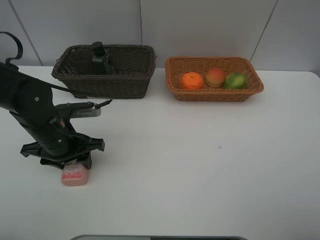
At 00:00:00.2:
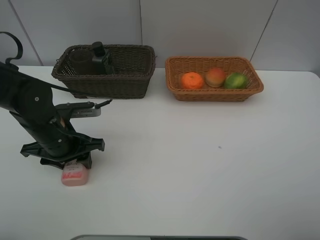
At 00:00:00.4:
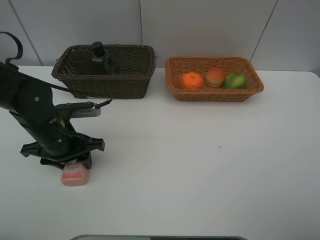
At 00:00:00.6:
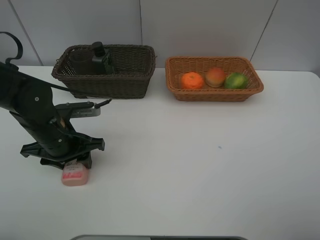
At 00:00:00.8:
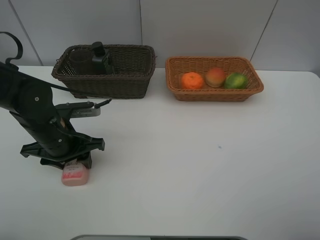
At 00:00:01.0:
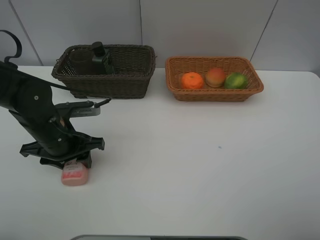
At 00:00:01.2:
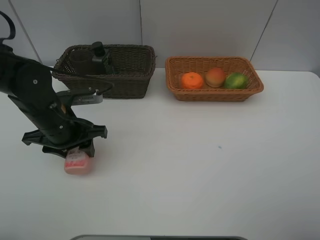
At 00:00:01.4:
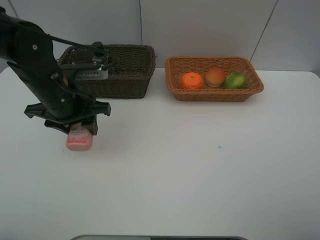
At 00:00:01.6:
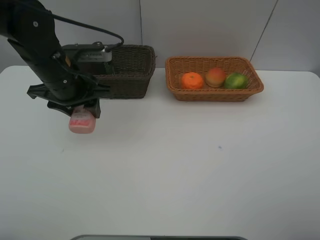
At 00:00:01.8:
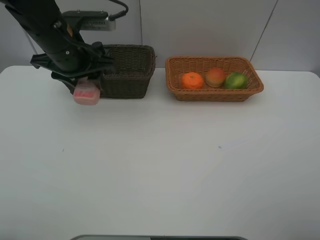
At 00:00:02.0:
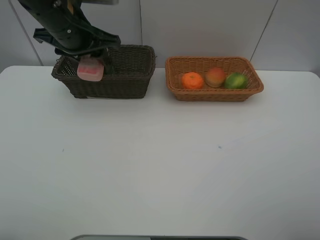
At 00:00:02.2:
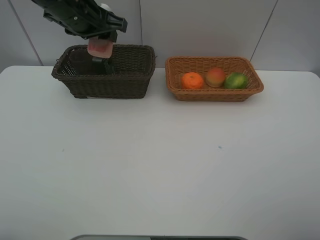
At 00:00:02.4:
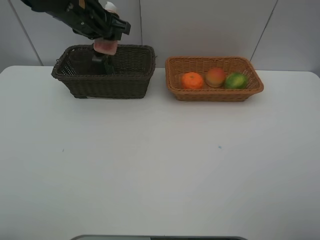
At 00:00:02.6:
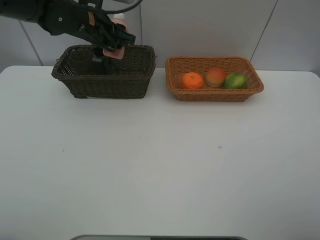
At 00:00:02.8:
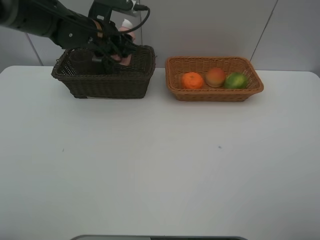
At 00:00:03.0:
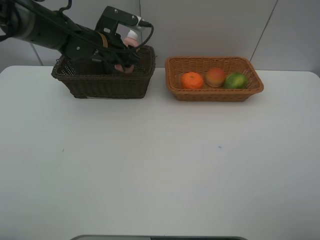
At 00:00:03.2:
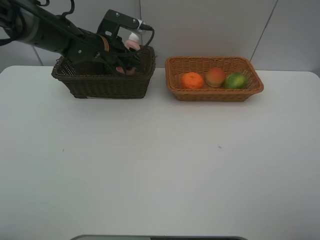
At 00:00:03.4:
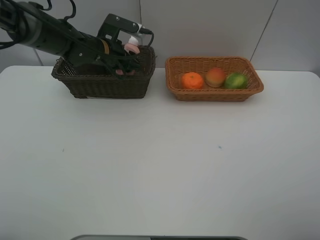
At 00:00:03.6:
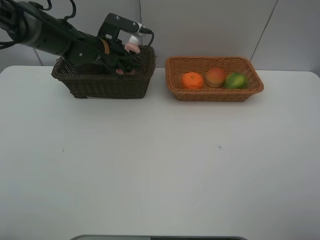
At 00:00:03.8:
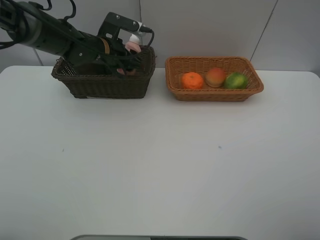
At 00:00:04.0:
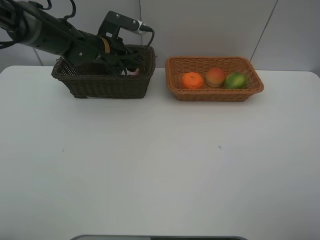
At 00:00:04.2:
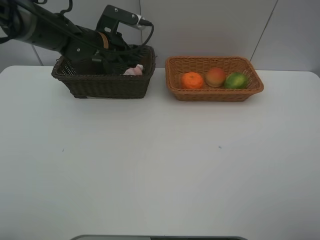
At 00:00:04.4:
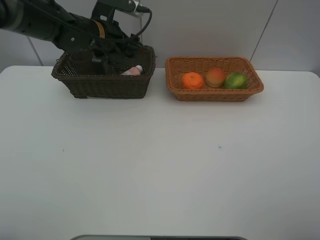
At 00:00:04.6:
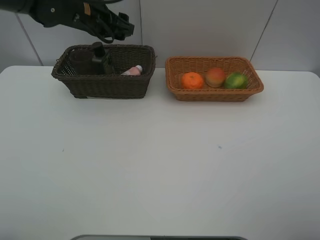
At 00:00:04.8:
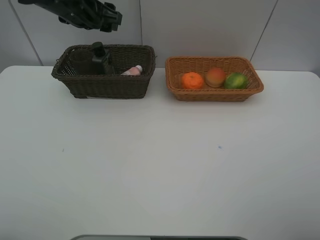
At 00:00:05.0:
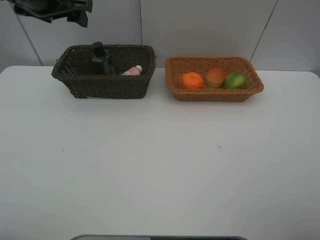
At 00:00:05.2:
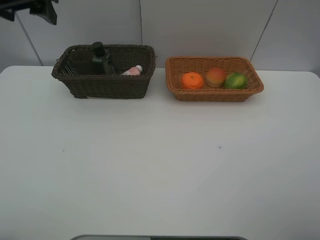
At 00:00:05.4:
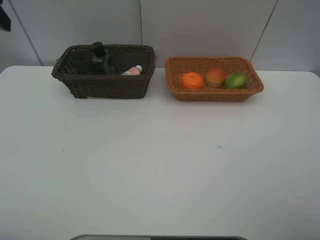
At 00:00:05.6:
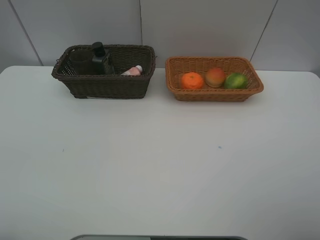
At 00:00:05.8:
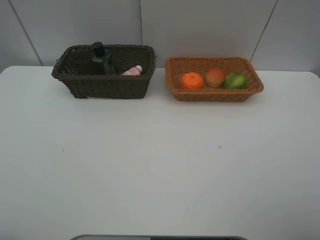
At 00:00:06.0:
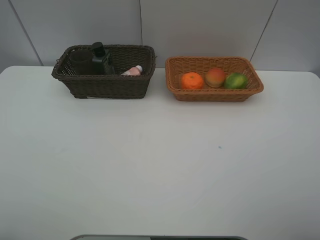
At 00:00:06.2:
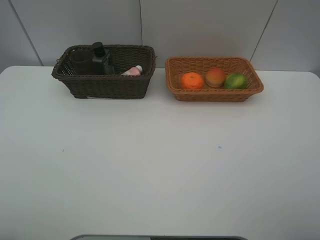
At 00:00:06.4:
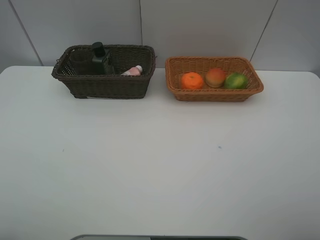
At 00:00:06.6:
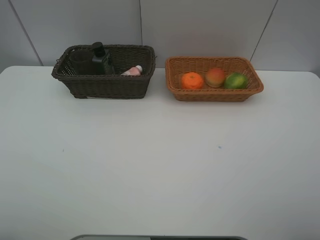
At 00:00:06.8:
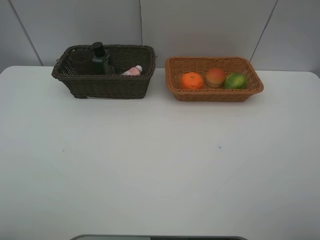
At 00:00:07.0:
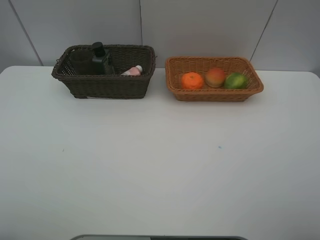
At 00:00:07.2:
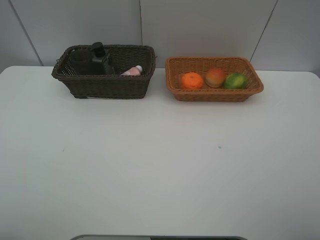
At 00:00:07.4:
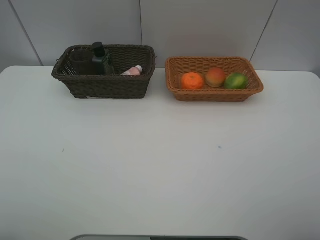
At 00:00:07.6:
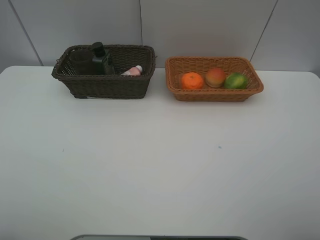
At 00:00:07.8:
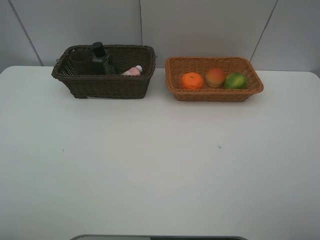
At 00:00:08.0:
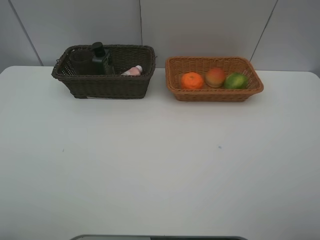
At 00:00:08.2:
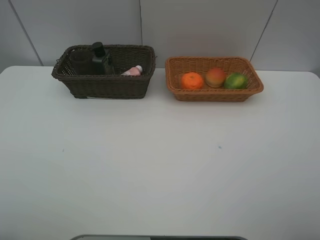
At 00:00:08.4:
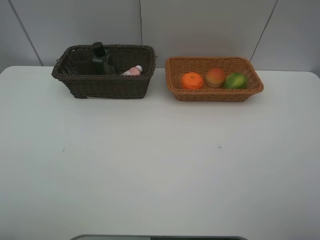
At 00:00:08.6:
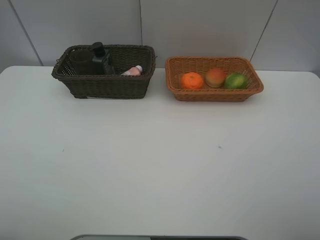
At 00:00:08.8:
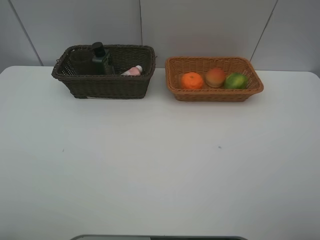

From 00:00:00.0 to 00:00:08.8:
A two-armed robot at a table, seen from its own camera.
Task of the whole recording: place multiple objects separately in different baskets.
From 00:00:00.0 to 00:00:01.4: The left gripper travels upward by some 5 cm.
From 00:00:01.4 to 00:00:03.0: The left gripper shifts approximately 15 cm forward.
From 00:00:03.0 to 00:00:04.4: The grippers stay close to where they were, moving slightly.
From 00:00:04.4 to 00:00:05.8: The left gripper moves backward, to the left and upward, about 40 cm.
